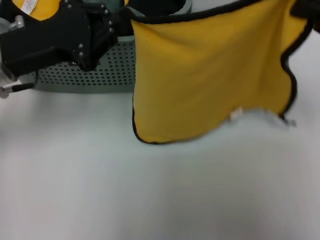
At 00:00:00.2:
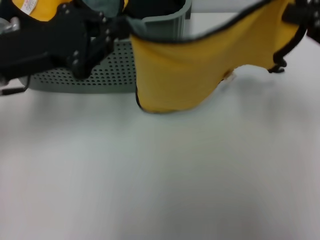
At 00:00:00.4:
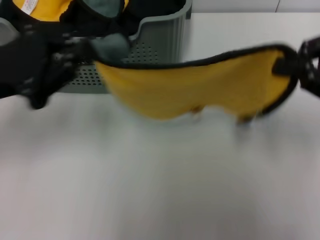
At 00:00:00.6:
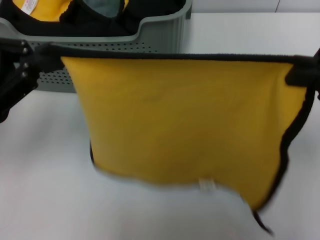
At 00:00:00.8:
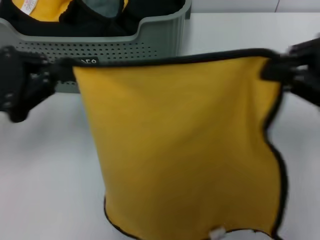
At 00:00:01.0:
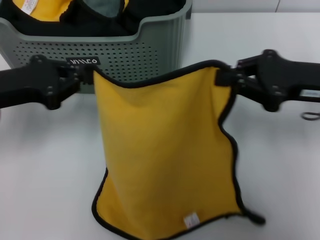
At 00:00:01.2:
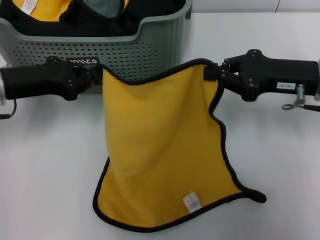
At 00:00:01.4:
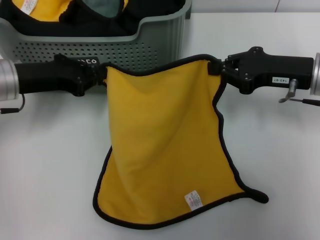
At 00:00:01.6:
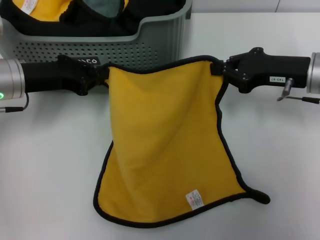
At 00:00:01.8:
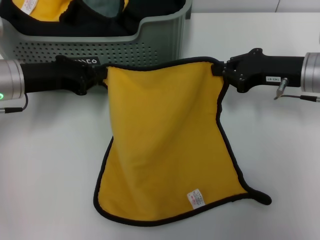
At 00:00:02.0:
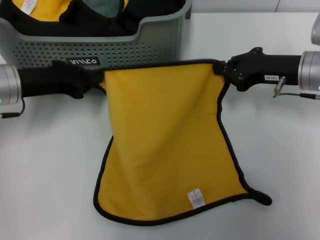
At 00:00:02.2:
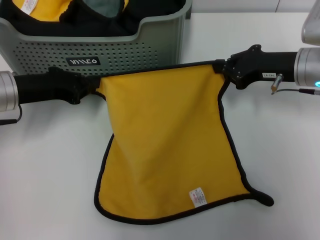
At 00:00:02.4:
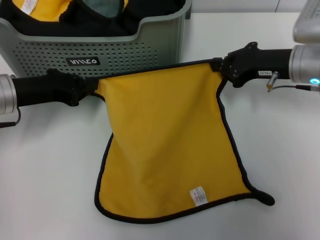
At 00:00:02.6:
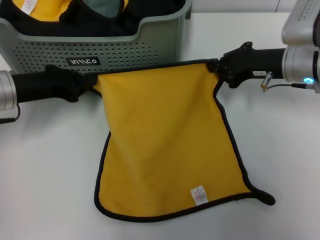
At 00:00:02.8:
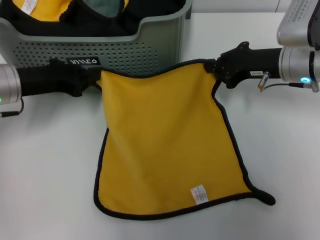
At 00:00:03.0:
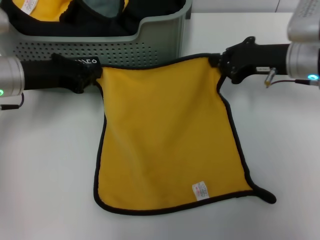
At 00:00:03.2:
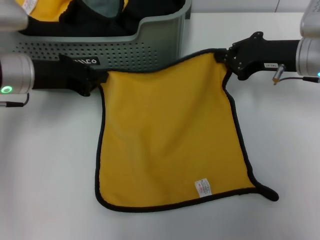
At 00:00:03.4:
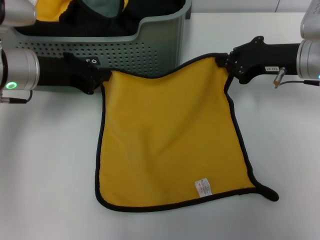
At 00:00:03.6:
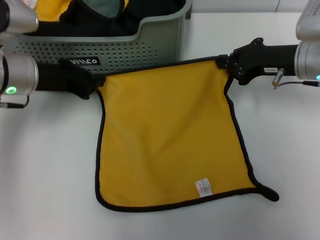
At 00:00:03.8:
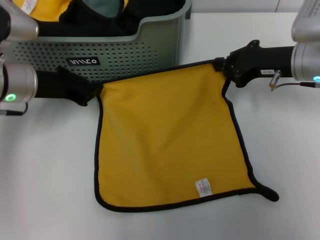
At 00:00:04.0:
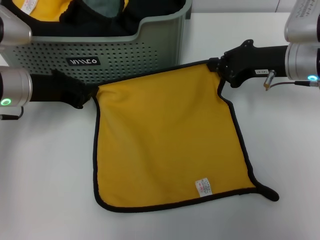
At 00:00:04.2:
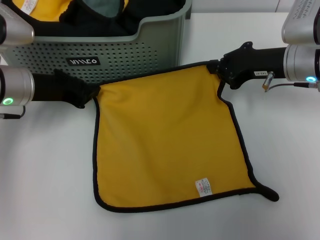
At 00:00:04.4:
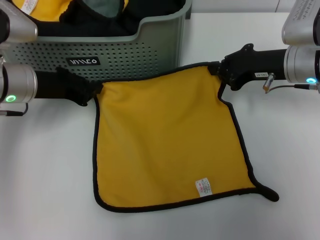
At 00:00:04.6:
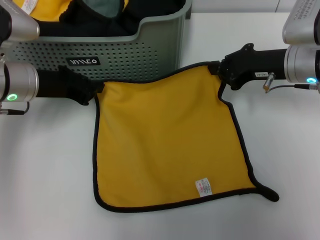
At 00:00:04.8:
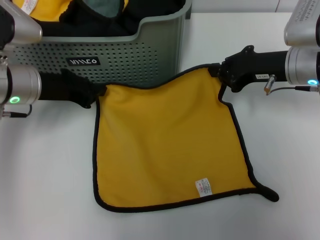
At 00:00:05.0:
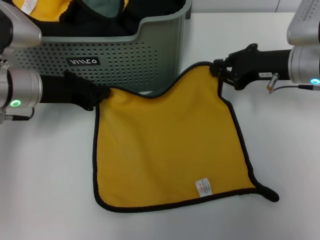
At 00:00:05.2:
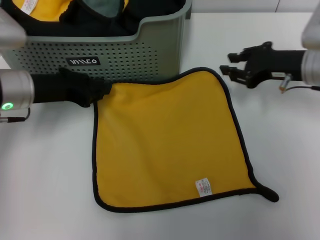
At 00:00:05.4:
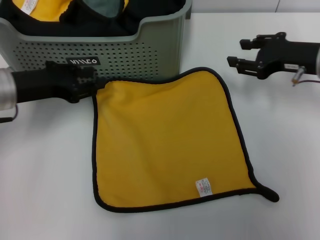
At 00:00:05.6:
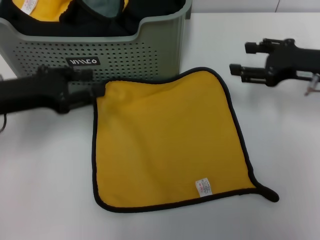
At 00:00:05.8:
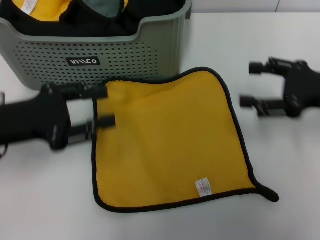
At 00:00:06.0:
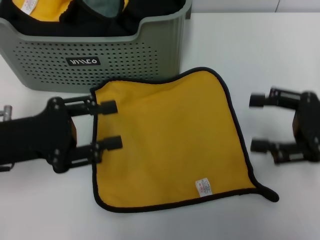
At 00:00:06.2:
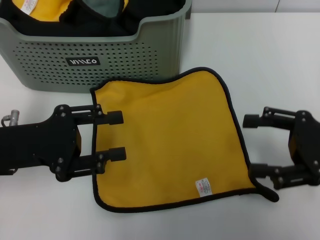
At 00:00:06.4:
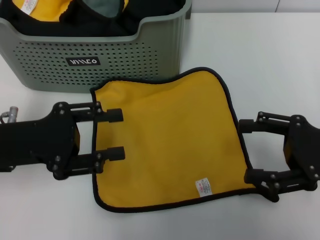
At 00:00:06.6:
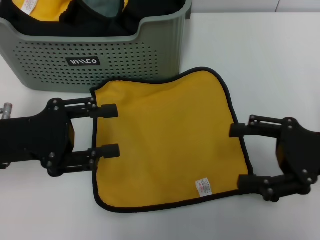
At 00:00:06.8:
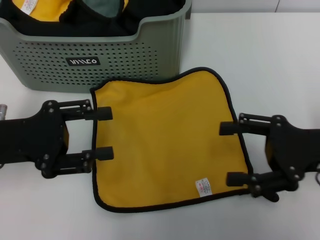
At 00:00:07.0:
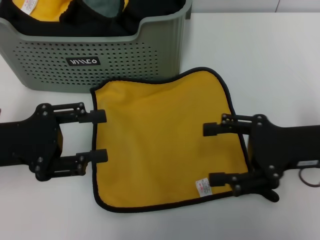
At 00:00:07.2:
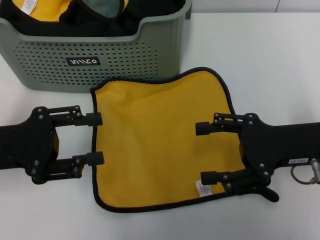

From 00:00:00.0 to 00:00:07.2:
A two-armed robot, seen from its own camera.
Task of the whole recording: pick up the towel from the storage box and lay it flat on the table.
Step, from 00:00:00.0 to 00:00:05.2: Spread the towel flat with the right gripper.
From 00:00:00.0 to 00:00:01.4: The right gripper is displaced downward and to the left by approximately 10 cm. Meanwhile the left gripper moves downward, about 5 cm, and reaches roughly 5 cm backward, then returns.
From 00:00:01.4 to 00:00:02.8: The right gripper ends up approximately 5 cm from where it was.
From 00:00:02.8 to 00:00:04.4: The grippers stay close to where they were, moving slightly.
From 00:00:04.4 to 00:00:05.8: The left gripper goes about 10 cm backward, and opens its fingers. The right gripper goes some 10 cm to the right and backward, and opens up.
From 00:00:05.8 to 00:00:07.2: The right gripper moves to the left, roughly 5 cm.
